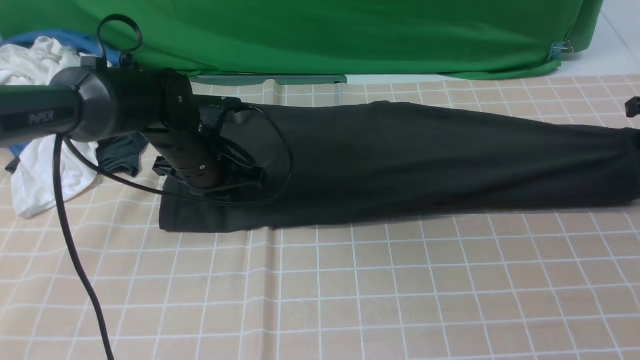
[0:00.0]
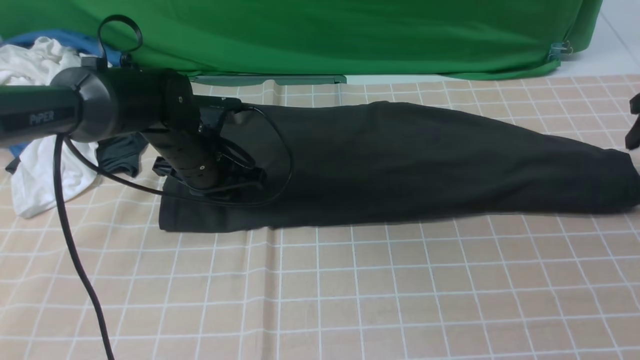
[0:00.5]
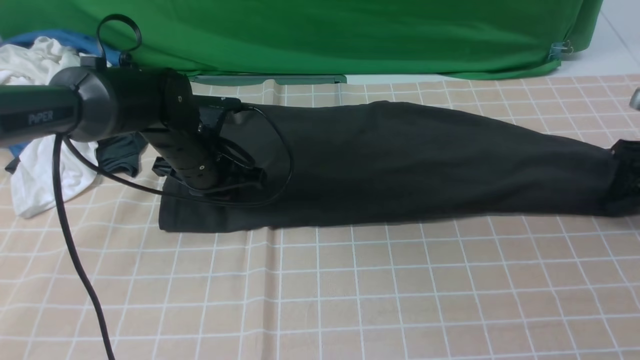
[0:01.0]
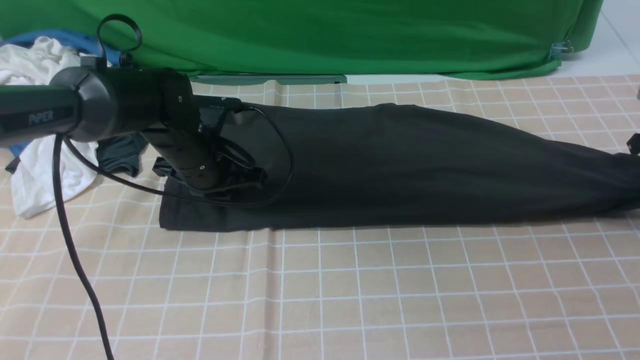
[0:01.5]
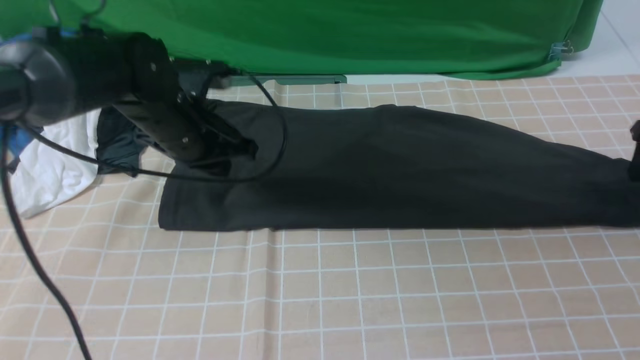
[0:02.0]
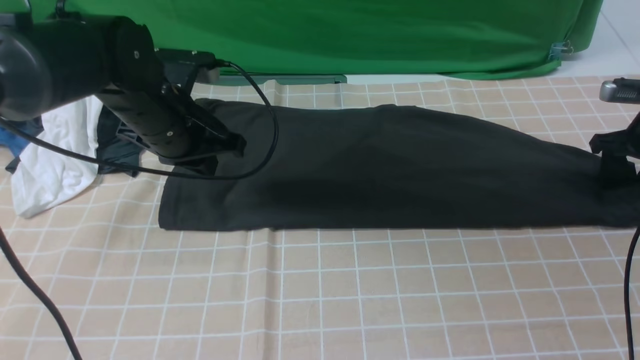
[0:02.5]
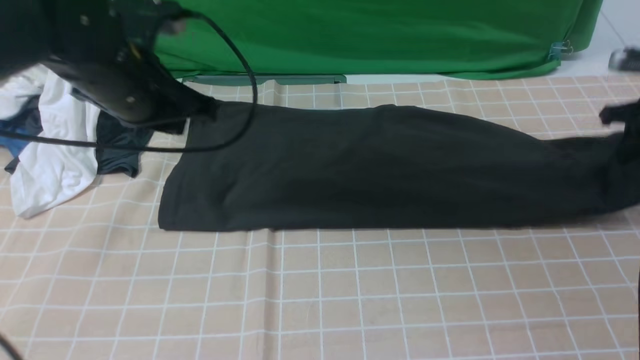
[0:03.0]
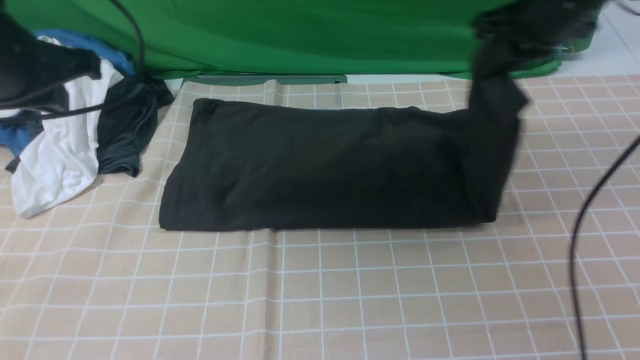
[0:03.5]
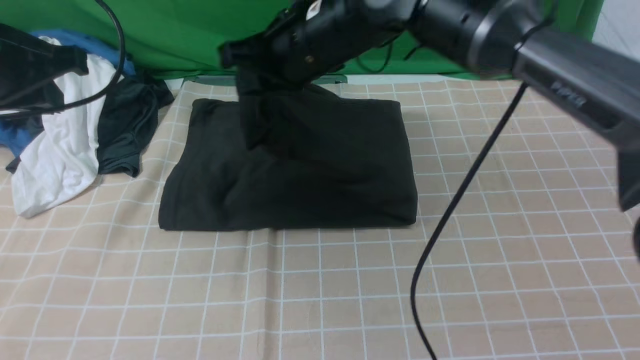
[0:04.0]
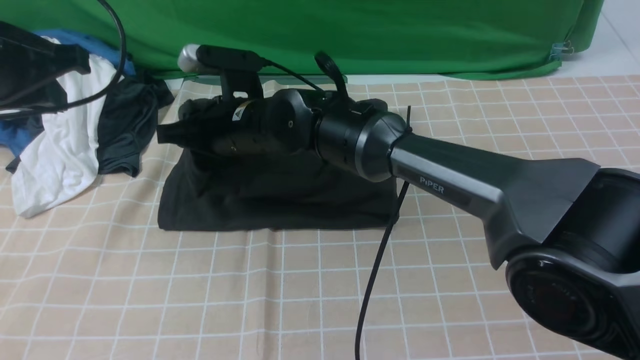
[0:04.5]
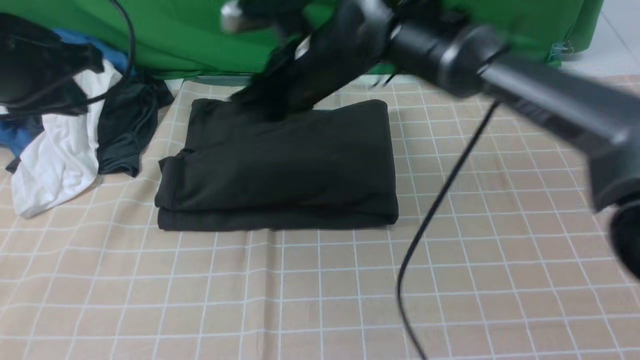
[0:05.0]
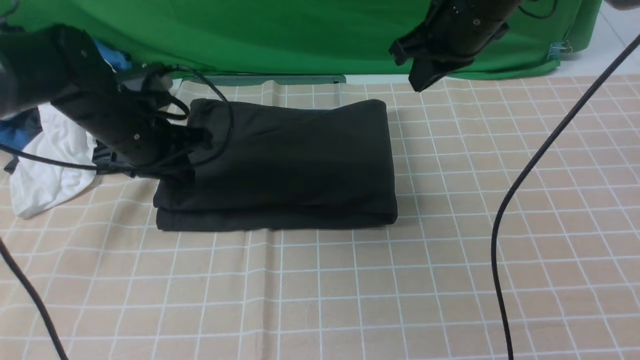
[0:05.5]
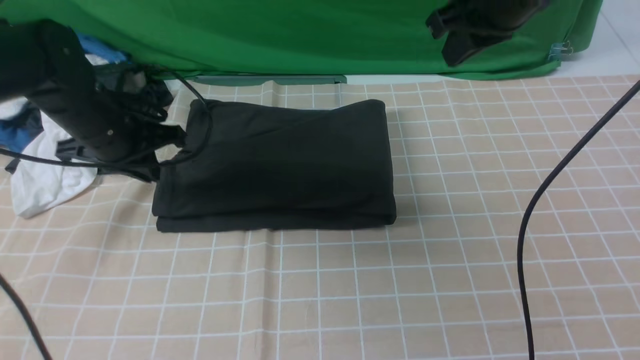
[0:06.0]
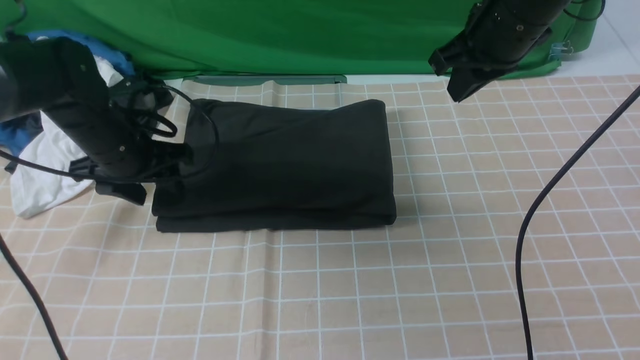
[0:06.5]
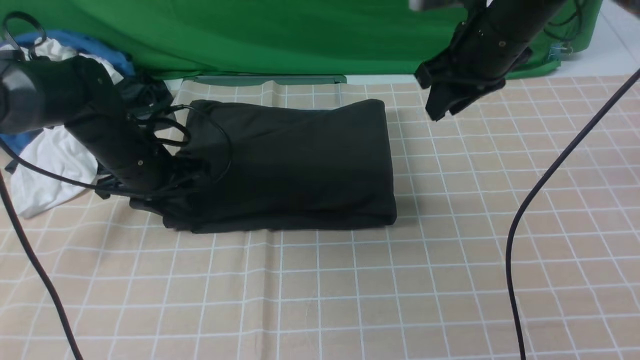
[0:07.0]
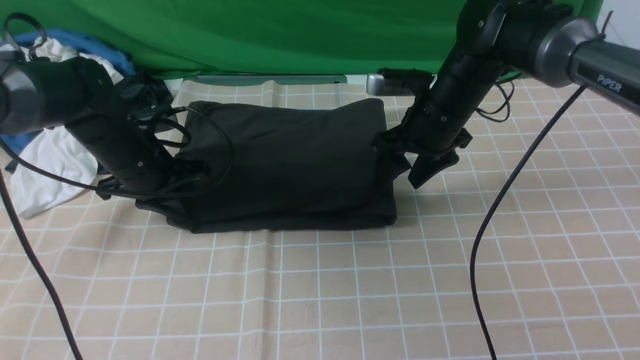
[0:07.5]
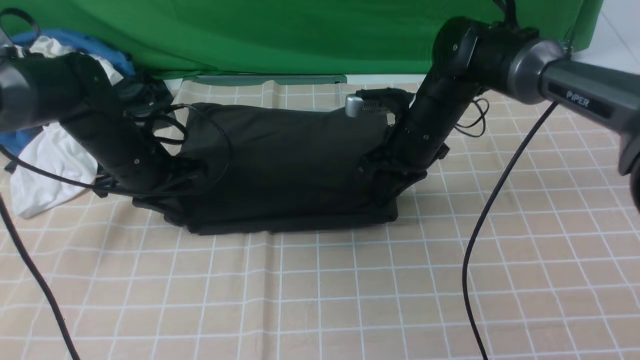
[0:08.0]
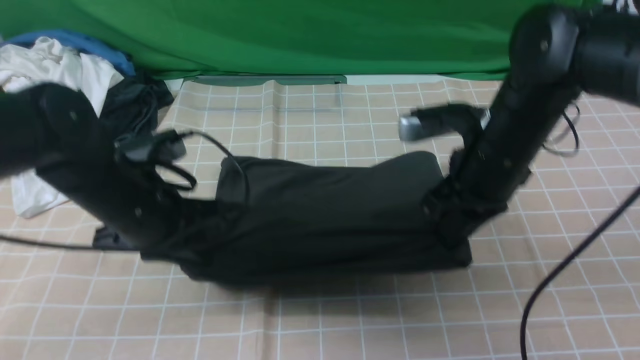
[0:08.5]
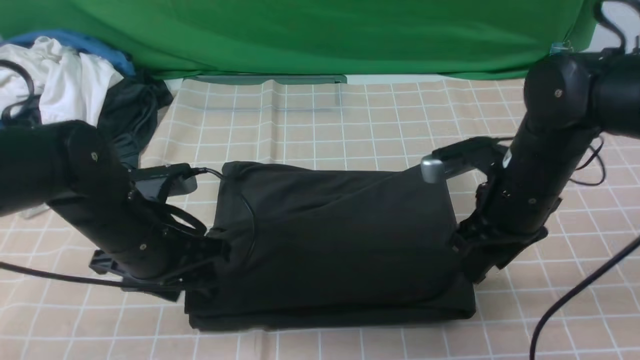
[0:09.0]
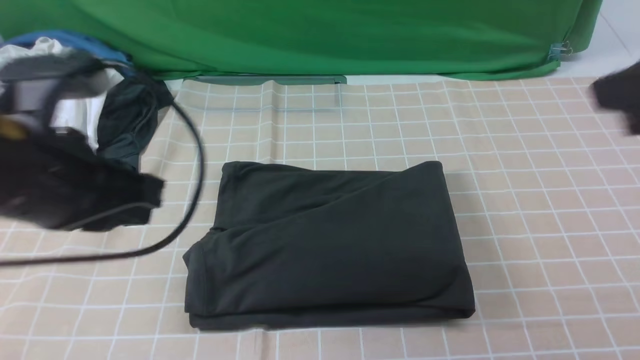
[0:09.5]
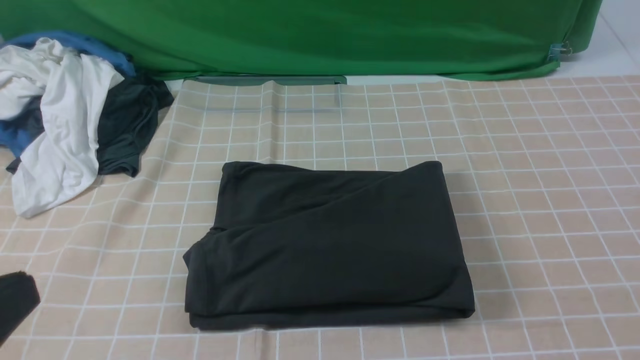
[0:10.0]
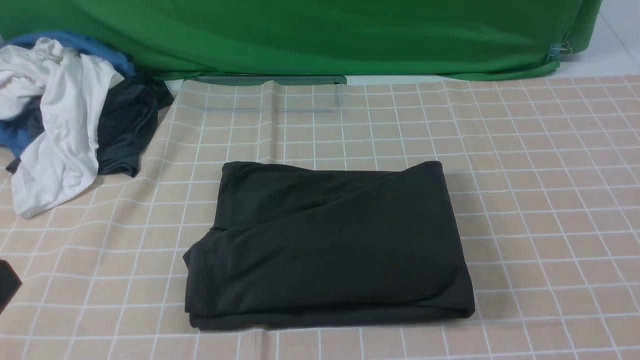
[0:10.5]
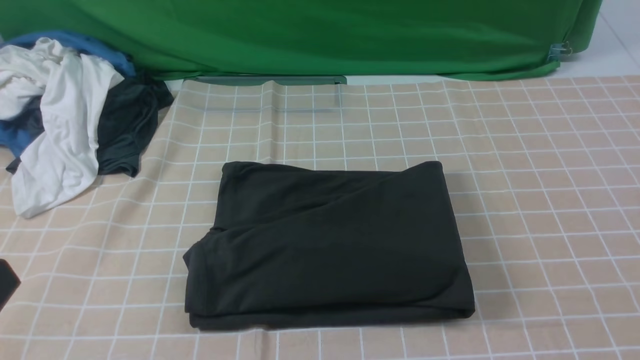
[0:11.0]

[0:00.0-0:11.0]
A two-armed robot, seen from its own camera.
Step, 0:00.0 to 0:02.5: use the right arm to clamp the right edge of the fabric.
Step, 0:03.0 to 0:04.5: use the right arm to drag the right edge of the fabric to the left and folds it over the left edge.
0:00.0 to 0:02.0: The left gripper heads upward, covering about 5 cm, while the right gripper opens.
0:02.0 to 0:03.5: The left gripper goes some 20 cm upward, to the left and backward; the right gripper goes approximately 30 cm to the left and upward, and closes its fingers.
0:03.5 to 0:05.5: The left gripper travels downward and forward by approximately 15 cm. The right gripper travels to the left and back again, about 30 cm each way.
0:05.5 to 0:07.5: The right gripper travels downward by some 15 cm, and opens. The left gripper goes about 5 cm downward, and opens and closes again.
0:07.5 to 0:09.0: The right gripper heads backward and to the right, covering approximately 15 cm, and closes. The left gripper heads backward, covering about 15 cm, and opens.
0:09.0 to 0:11.0: The right gripper heads backward and to the right, covering roughly 30 cm, and closes, then opens again, while the left gripper goes roughly 25 cm backward and upward, and closes up.
